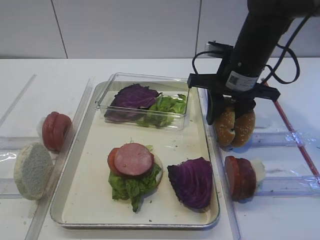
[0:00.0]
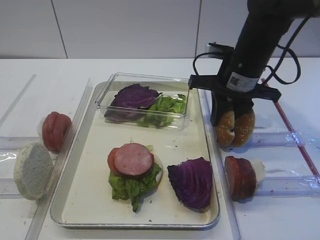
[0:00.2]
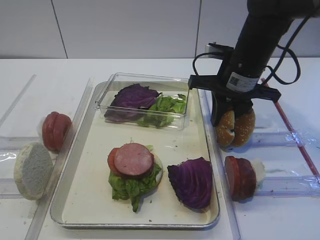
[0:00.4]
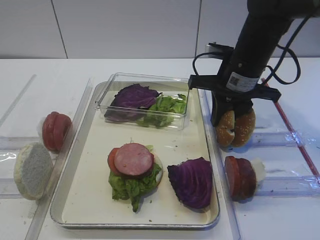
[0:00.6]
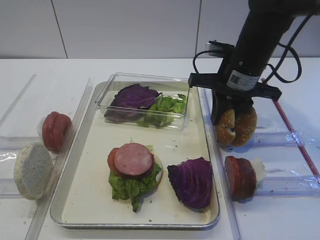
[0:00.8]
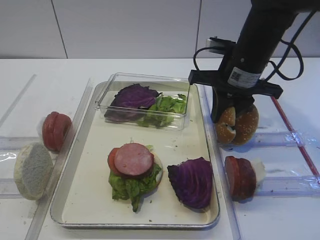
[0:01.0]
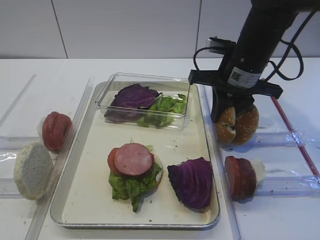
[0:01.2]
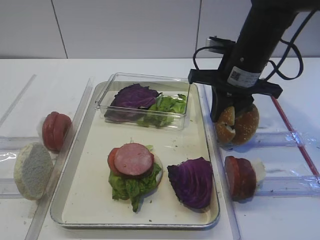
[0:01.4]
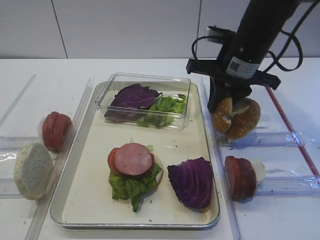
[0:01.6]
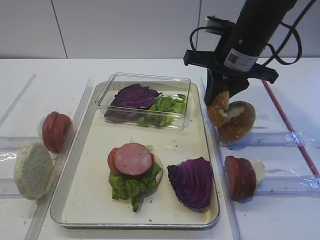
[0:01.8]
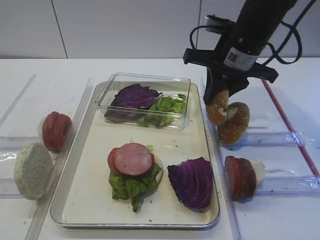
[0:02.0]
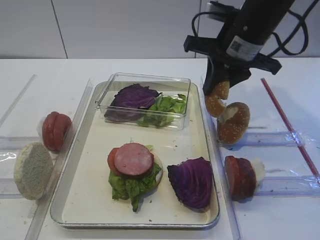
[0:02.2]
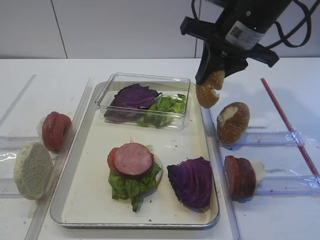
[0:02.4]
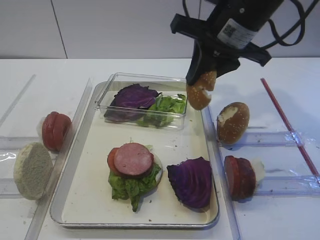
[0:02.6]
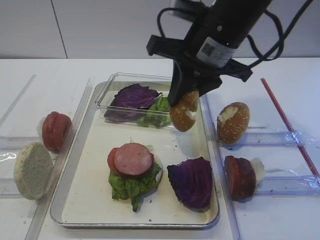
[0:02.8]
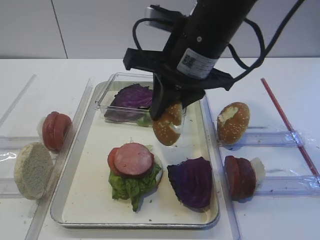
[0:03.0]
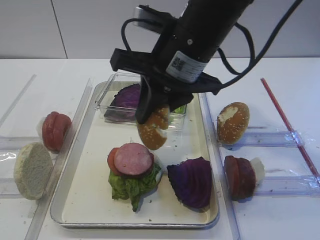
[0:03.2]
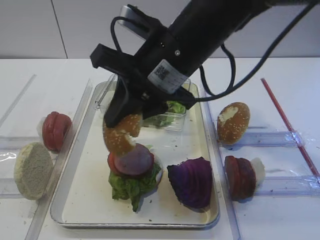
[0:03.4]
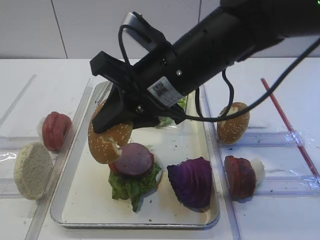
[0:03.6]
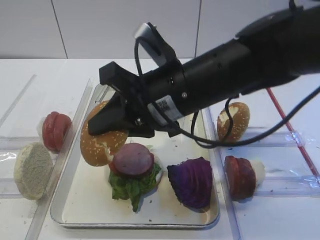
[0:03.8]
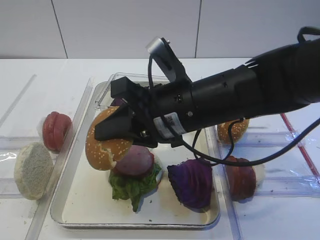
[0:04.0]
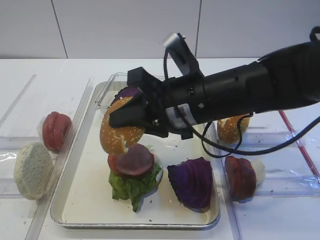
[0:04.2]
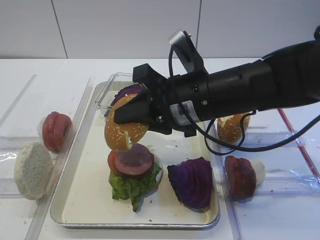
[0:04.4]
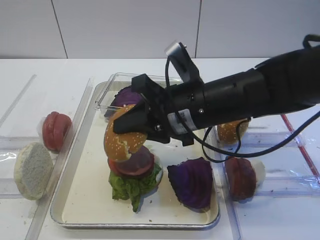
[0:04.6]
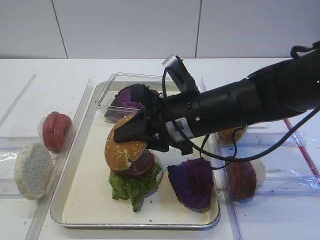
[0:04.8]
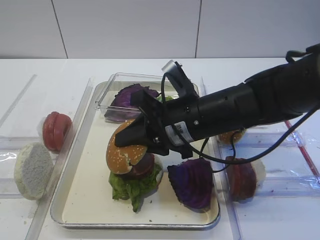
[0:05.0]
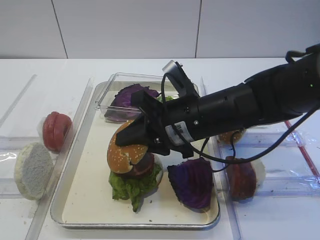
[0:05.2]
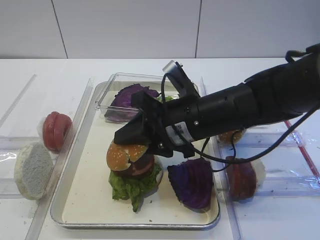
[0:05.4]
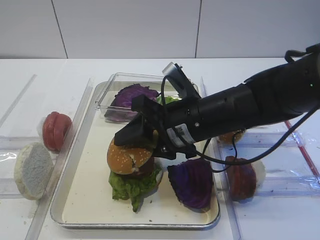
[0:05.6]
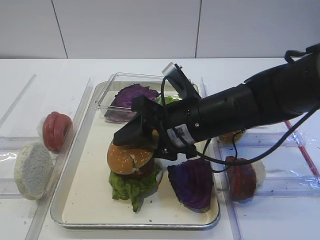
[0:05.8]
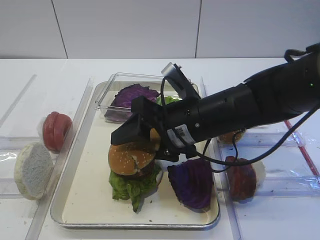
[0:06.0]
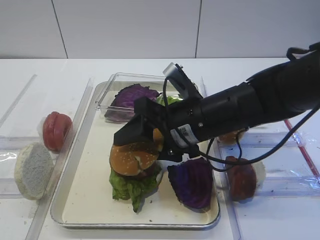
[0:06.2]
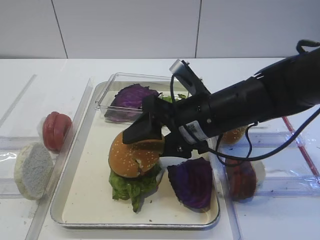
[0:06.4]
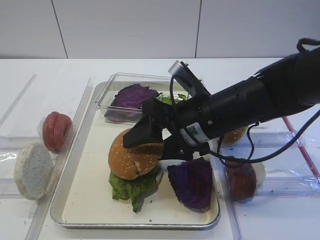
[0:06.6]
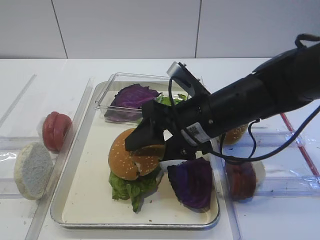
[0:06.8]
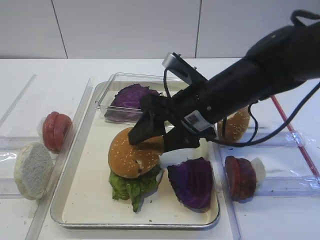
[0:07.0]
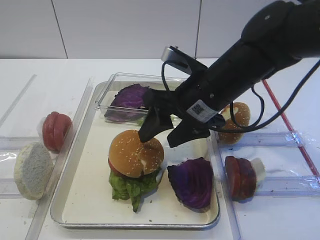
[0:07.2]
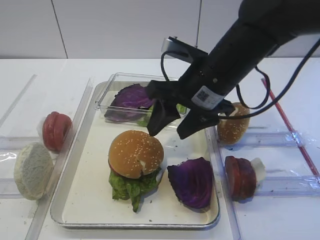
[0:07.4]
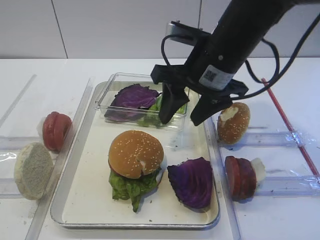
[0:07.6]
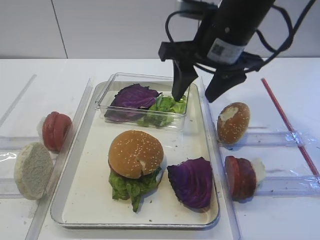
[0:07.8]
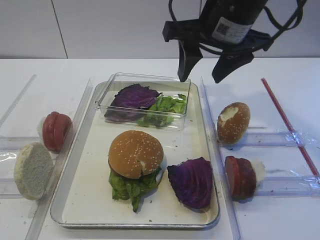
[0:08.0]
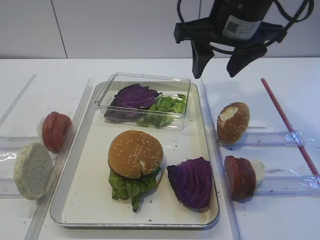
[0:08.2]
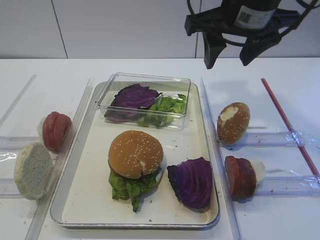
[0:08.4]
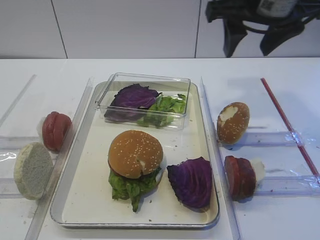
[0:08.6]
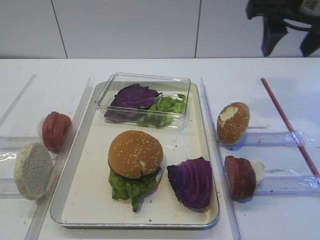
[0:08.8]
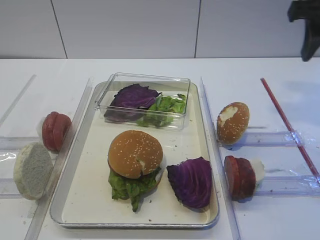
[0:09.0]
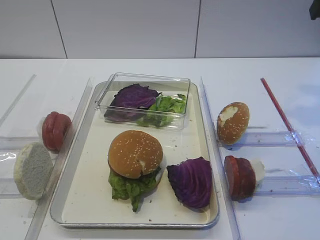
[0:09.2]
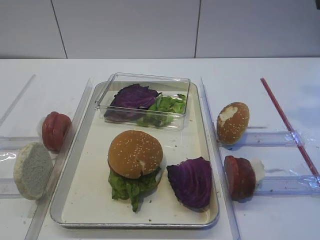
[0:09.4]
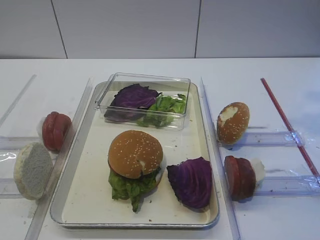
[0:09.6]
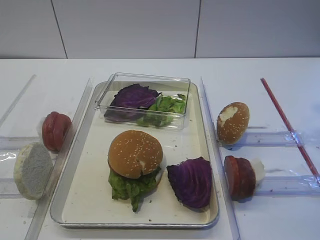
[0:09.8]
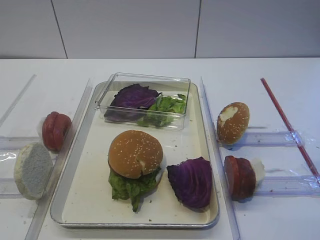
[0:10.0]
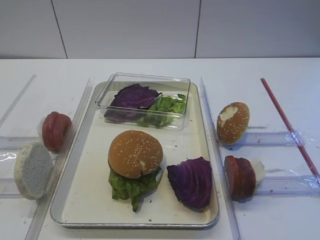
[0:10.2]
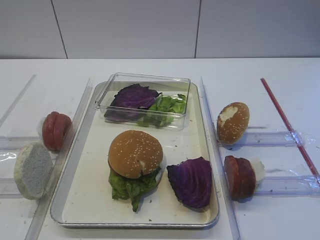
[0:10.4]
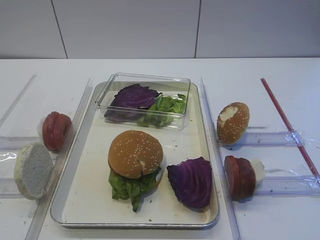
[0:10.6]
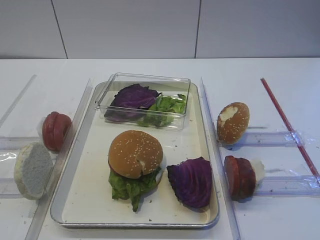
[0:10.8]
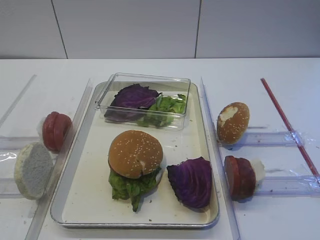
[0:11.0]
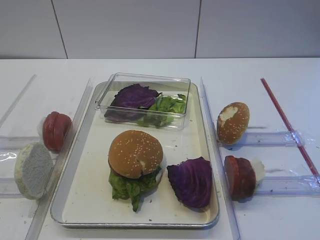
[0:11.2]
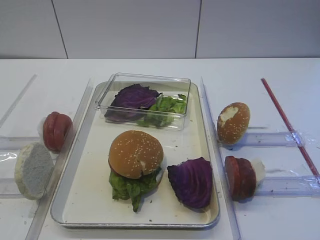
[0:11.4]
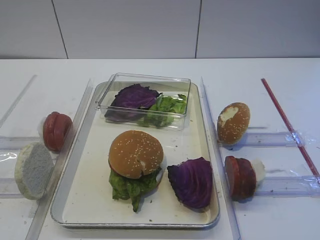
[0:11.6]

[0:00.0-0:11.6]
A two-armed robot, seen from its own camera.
Step, 0:00.0 to 0:02.0: Pick up the hamburger lid with the right gripper.
Step, 0:02.2 to 0:07.6: Place the hamburger lid on the cutlet with the right gripper.
0:00.0 to 0:01.4: The right gripper closes up.
0:01.4 to 0:02.8: The right gripper moves upward and to the left, some 10 cm.
0:02.8 to 0:04.4: The right gripper heads downward and backward, covering about 10 cm.
0:04.4 to 0:05.8: The right gripper opens.
0:07.2 to 0:08.8: The right gripper shifts about 20 cm upward and to the right.
0:08.8 to 0:10.2: The right gripper goes about 20 cm backward.

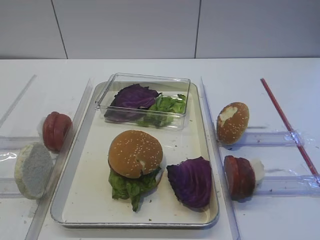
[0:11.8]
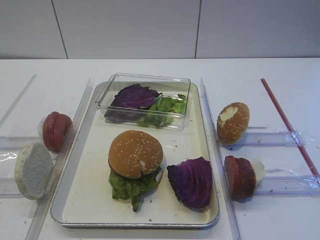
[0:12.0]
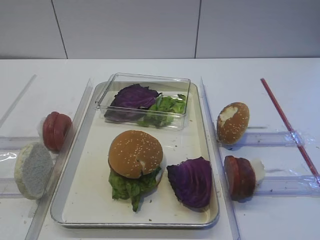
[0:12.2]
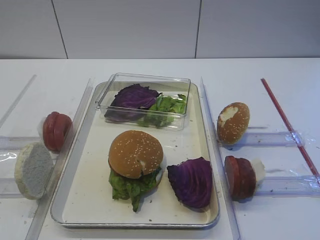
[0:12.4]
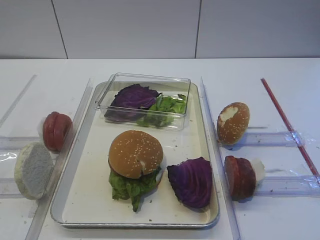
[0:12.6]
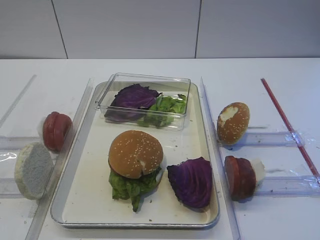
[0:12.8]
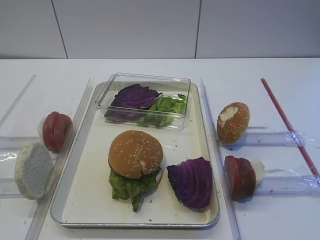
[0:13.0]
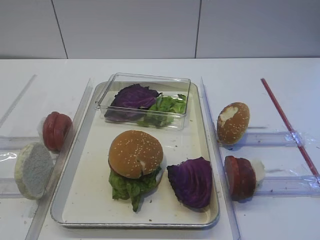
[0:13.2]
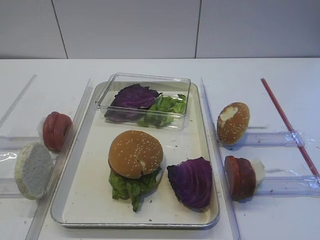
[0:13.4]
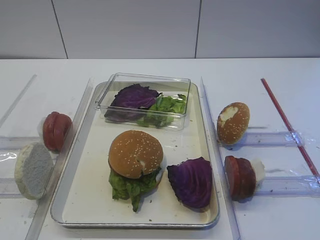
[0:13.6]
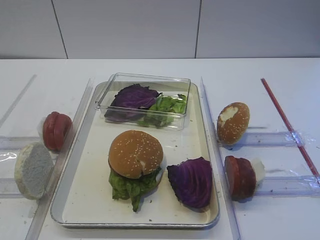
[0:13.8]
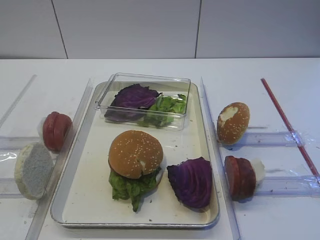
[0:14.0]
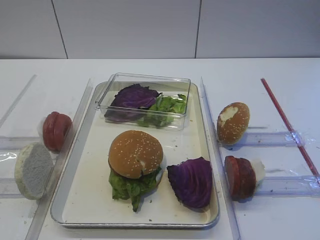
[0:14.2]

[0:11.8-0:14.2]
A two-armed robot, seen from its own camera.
0:11.8 to 0:14.2: The two grippers keep their place.

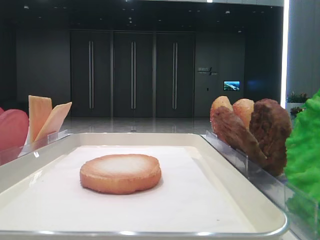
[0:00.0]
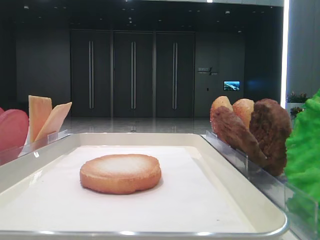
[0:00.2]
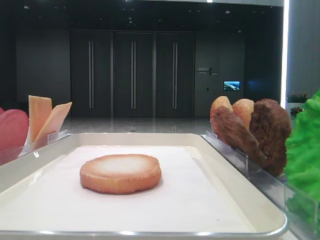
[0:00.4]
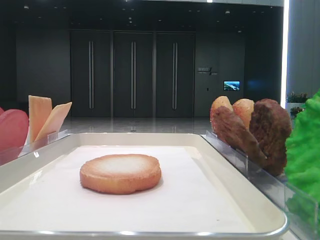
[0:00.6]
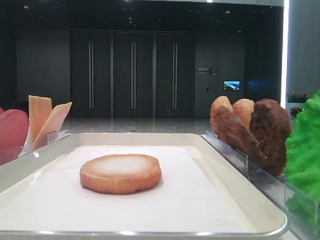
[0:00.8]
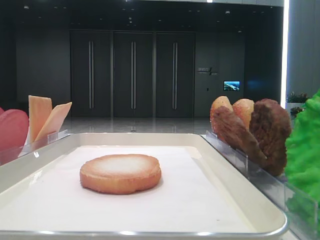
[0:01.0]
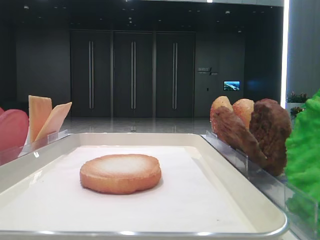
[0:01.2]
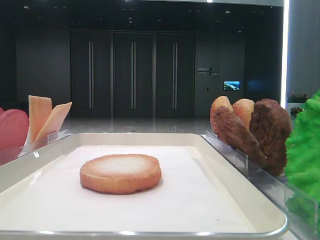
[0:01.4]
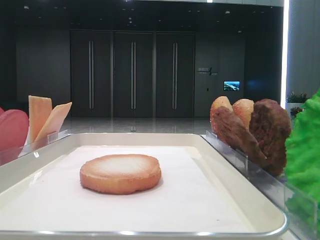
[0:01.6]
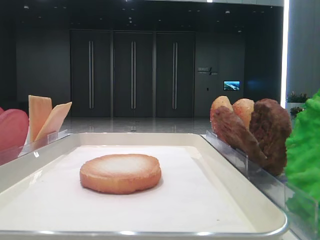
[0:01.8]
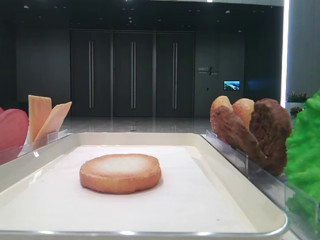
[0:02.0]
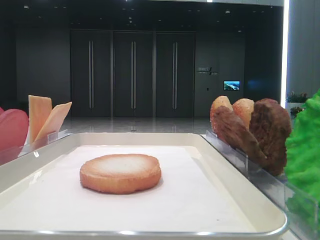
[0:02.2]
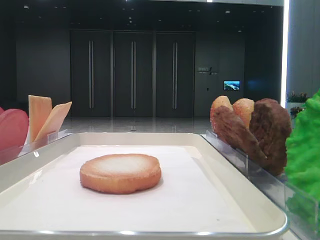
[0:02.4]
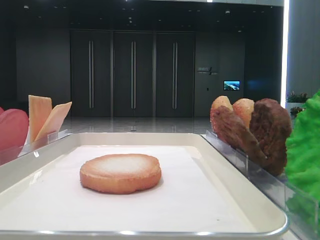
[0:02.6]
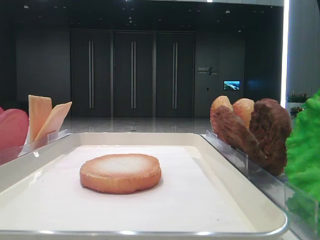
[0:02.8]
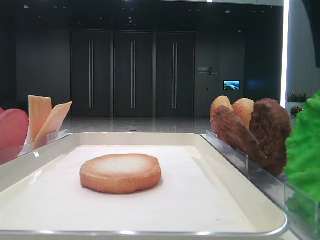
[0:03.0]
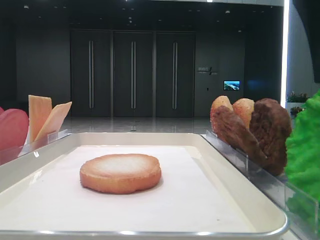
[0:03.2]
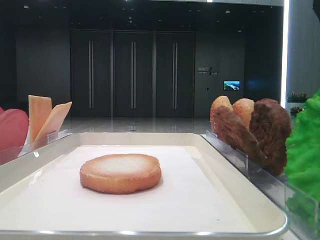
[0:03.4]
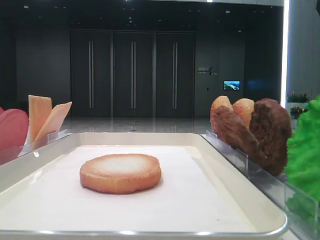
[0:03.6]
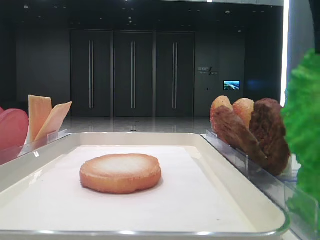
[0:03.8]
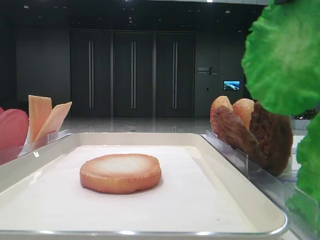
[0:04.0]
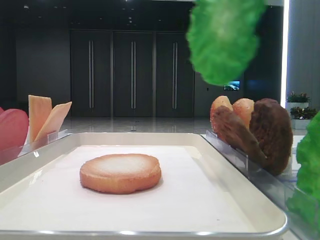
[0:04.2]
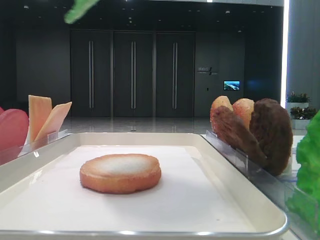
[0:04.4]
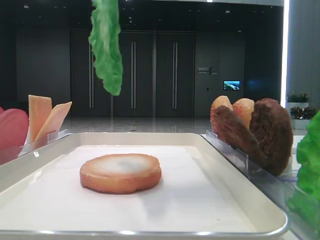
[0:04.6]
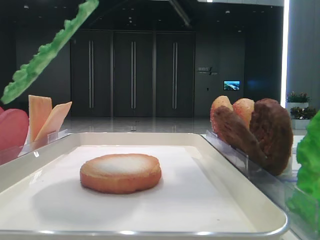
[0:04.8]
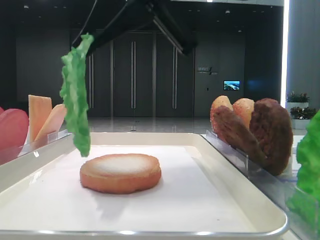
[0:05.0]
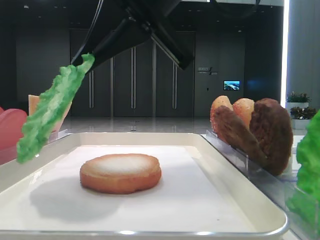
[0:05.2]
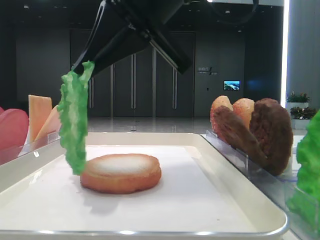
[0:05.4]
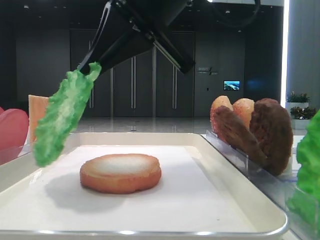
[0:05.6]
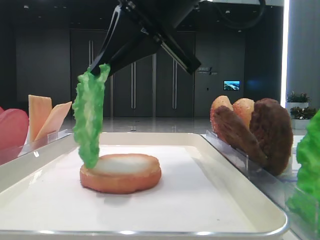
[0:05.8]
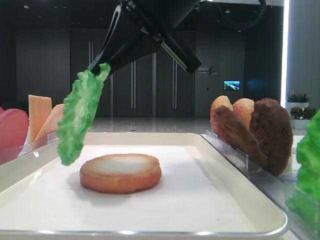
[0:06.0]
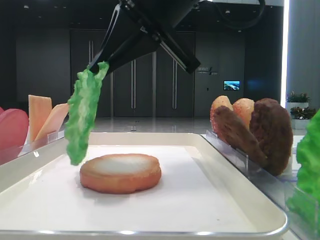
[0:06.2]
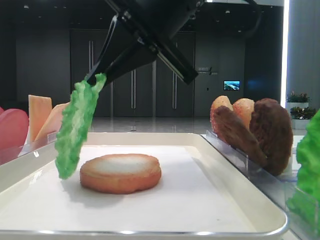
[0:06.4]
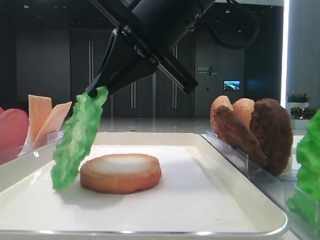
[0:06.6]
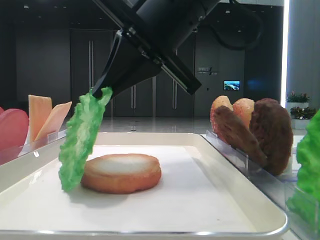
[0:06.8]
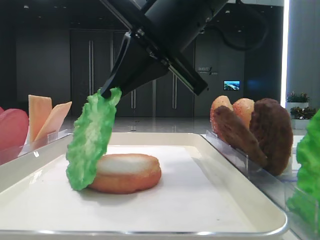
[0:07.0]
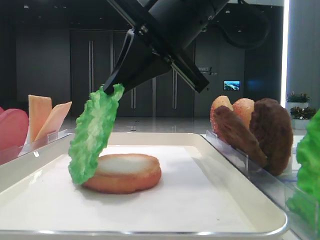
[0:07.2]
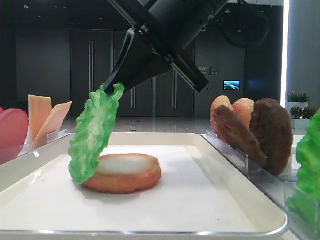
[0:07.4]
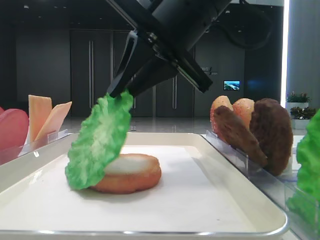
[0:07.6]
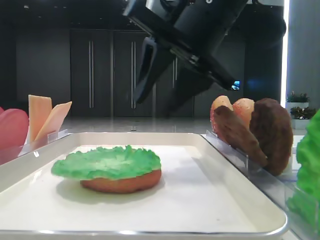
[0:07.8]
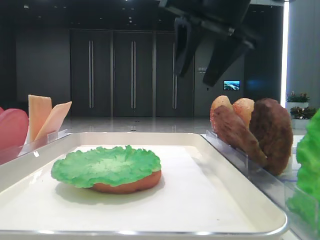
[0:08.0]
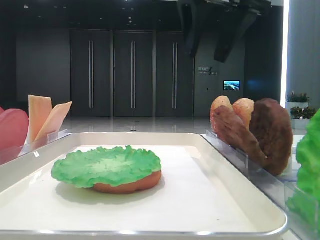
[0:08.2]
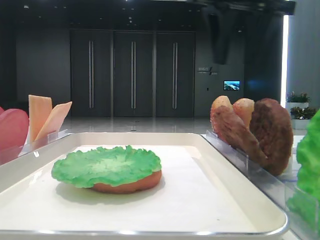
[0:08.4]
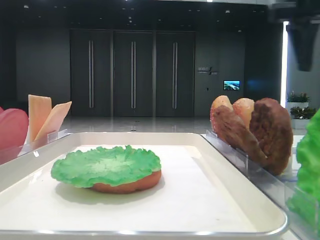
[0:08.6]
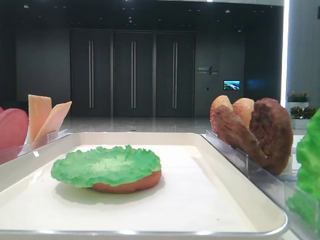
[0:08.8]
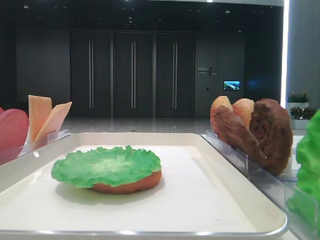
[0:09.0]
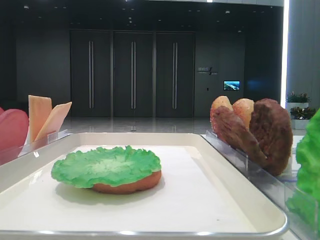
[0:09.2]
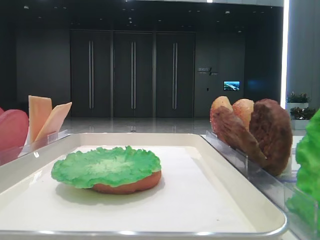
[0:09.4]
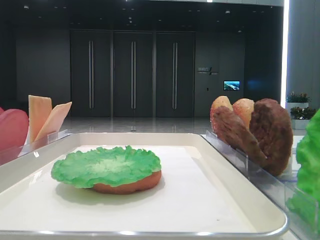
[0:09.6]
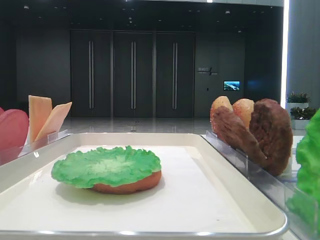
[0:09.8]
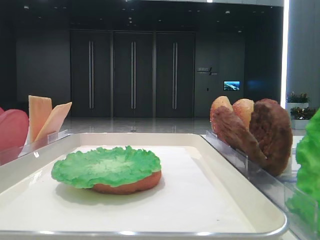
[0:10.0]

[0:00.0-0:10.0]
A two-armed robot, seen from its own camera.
Step, 0:00.0 to 0:03.4: Grab the lettuce leaf with the right hand.
Step, 0:03.8 to 0:07.6: Place the lettuce leaf on the bottom bread with the right hand.
0:02.8 to 0:04.2: The right gripper goes some 10 cm upward and to the left, and closes.
0:04.2 to 0:05.8: The right gripper travels downward, to the left and forward by roughly 15 cm. The left gripper closes up.
0:05.8 to 0:07.2: The grippers move only a little.
0:07.2 to 0:08.6: The right gripper travels to the right by some 20 cm, and opens.
0:08.6 to 0:10.0: The right gripper goes approximately 35 cm backward.
